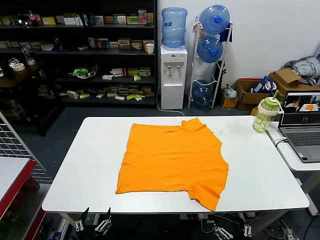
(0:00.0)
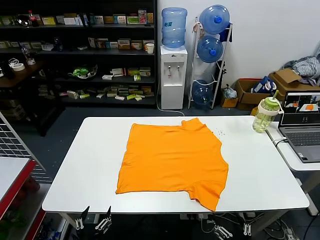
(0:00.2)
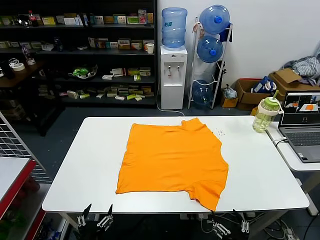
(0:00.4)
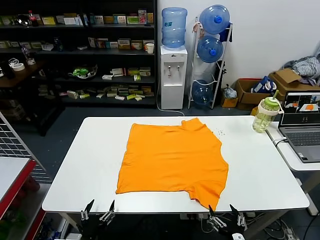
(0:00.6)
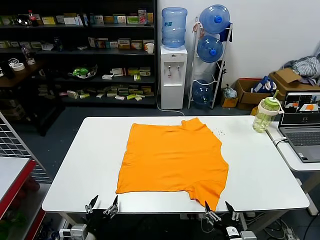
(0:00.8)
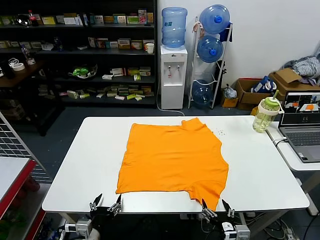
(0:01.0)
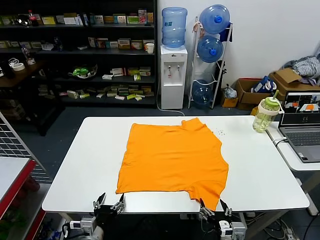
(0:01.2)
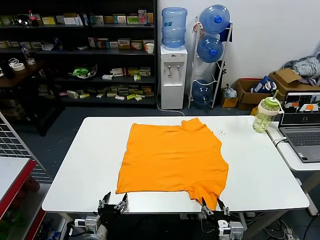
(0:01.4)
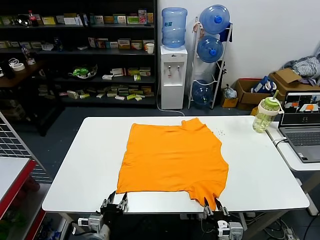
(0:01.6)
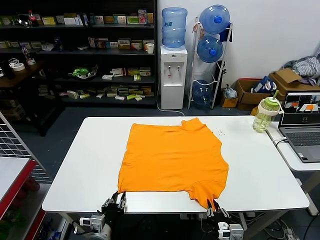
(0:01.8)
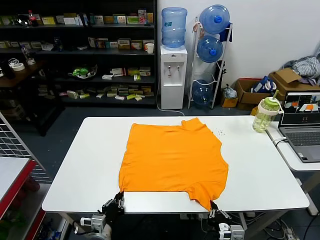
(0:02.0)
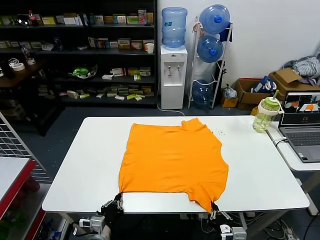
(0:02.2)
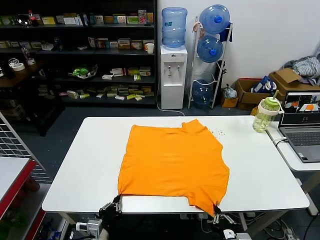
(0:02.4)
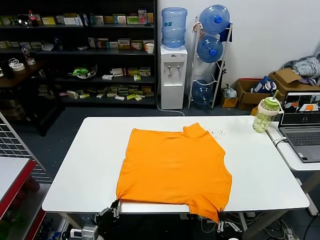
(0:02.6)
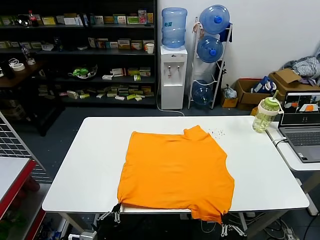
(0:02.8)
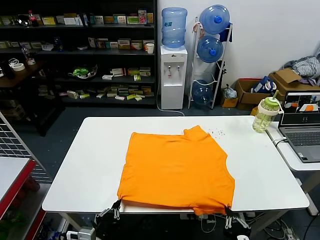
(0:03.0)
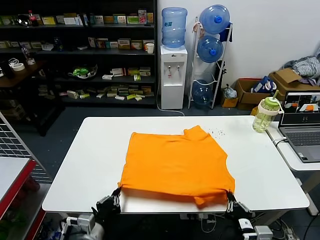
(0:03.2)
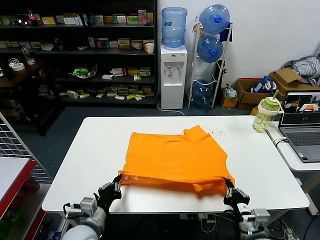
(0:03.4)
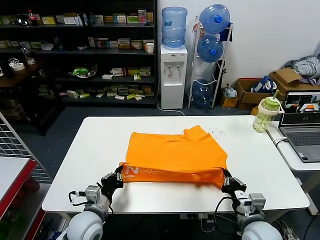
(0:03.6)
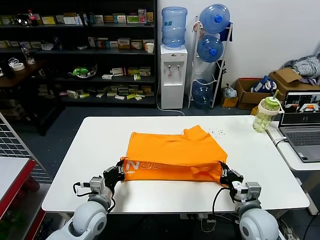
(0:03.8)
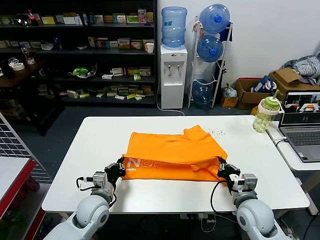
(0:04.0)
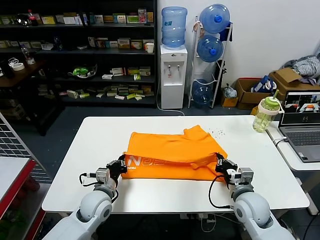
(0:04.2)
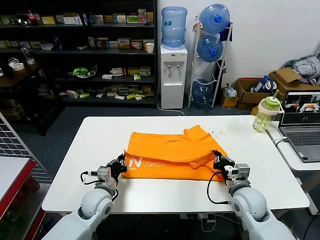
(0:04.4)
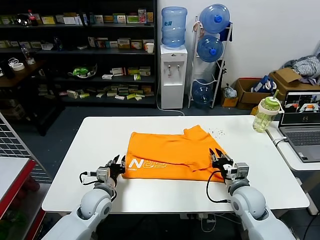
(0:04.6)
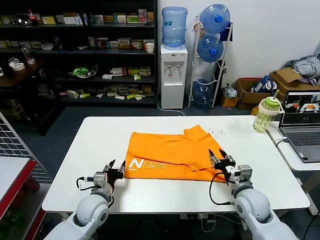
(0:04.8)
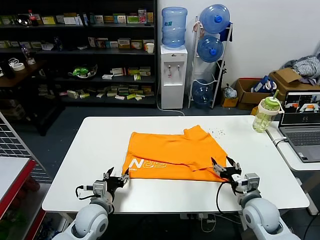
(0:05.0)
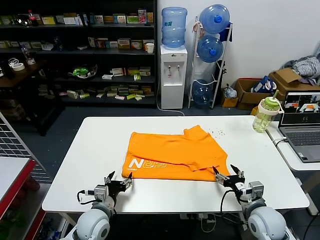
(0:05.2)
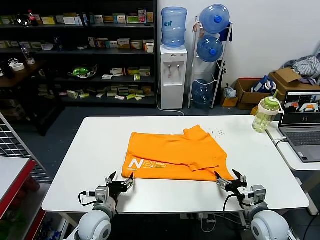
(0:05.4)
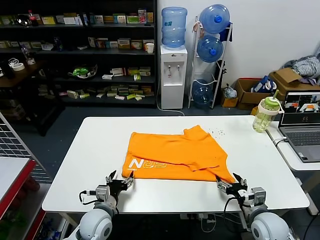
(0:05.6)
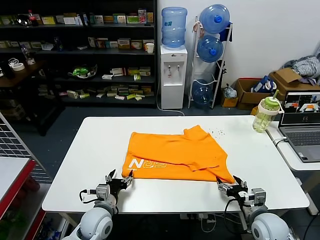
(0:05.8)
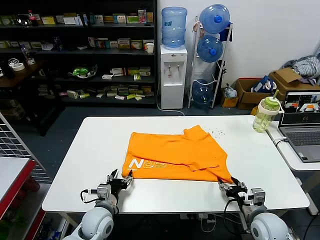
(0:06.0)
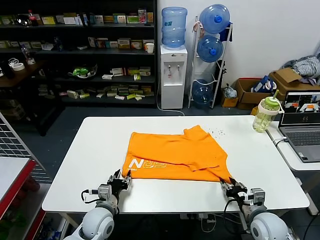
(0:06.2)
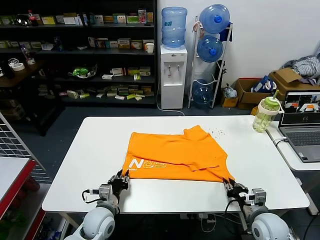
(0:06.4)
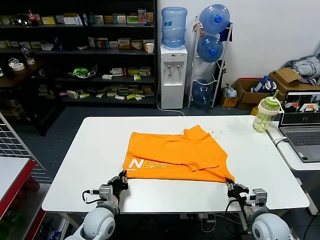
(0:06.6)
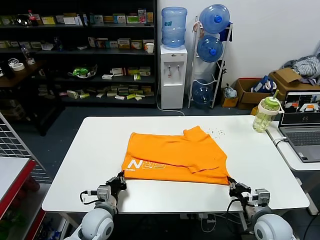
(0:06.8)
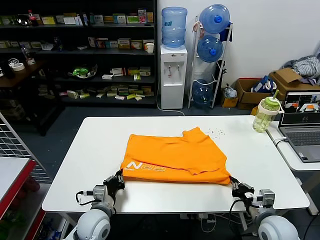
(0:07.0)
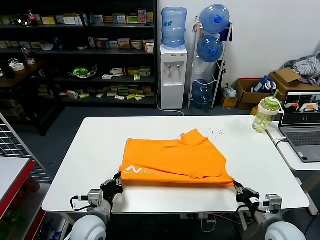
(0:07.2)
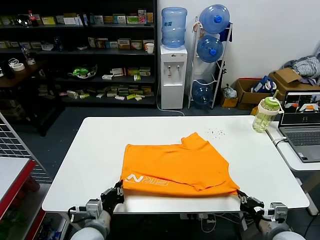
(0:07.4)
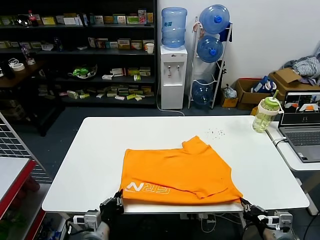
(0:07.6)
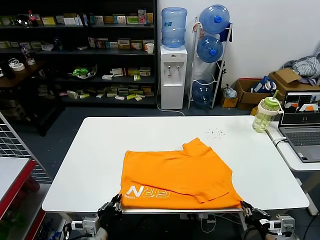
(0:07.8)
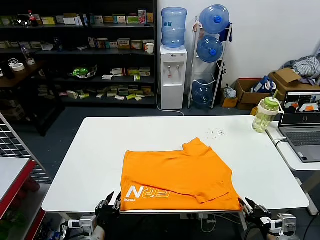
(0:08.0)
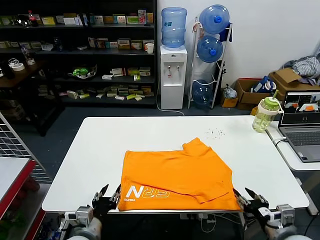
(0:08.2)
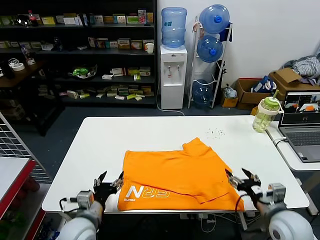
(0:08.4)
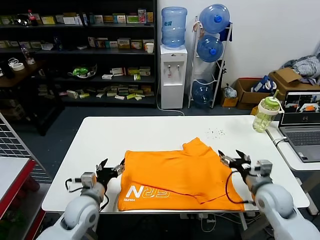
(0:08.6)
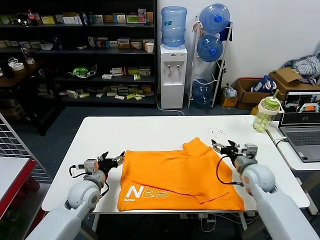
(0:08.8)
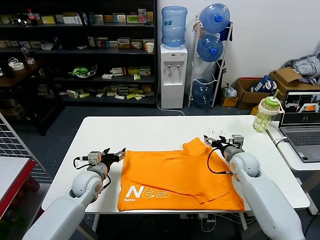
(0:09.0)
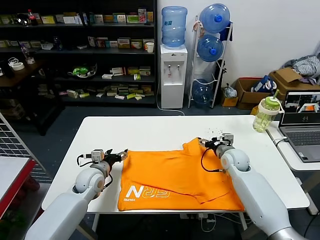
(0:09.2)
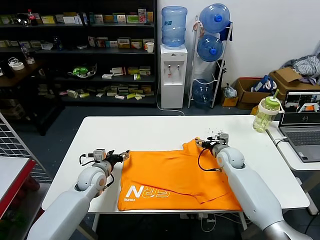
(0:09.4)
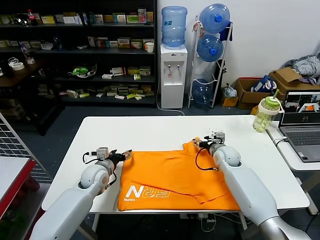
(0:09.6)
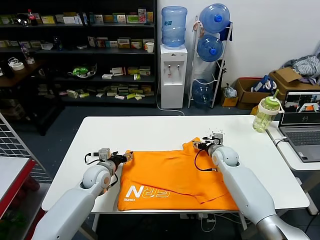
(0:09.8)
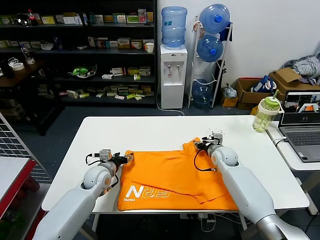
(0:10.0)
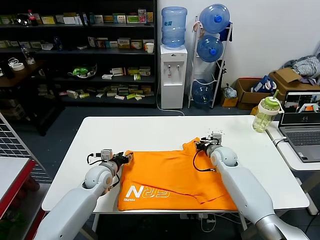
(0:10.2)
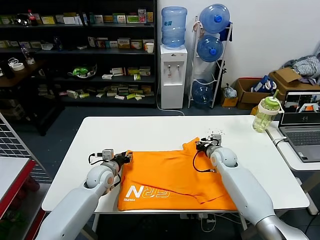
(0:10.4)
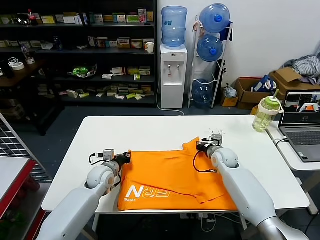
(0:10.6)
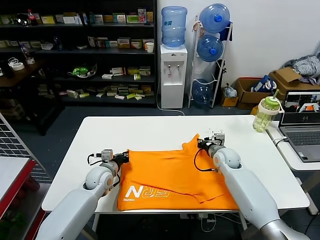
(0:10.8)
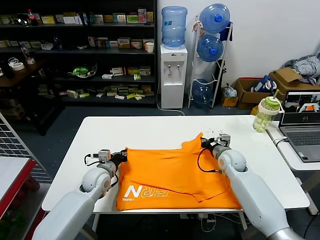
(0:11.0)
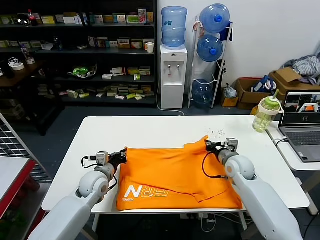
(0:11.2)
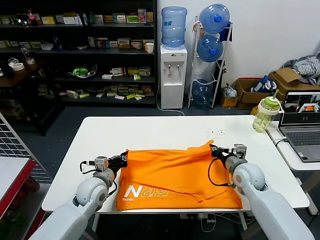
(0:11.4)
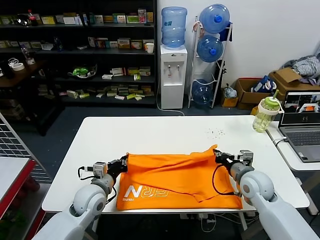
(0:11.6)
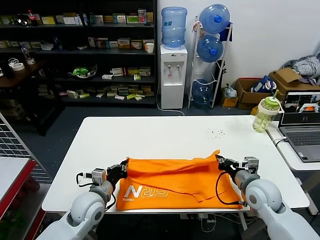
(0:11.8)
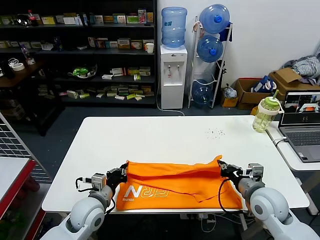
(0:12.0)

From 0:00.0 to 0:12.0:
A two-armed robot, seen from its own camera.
Task of the whole recording: fold and organize the clothes.
Step, from 0:00.0 to 0:02.0: use both grippers simultaneously to clamp the lower edge of the clothing fabric.
Step, from 0:02.2 to 0:04.4: use both grippers to drag the lower edge of the fabric forward and fold it over the upper edge.
Step, from 0:04.6 to 0:07.8: Drag the clothes downward with both gripper.
Step, from 0:08.0 to 0:10.6: use both grippers simultaneously to clamp the upper edge of the clothing fabric.
From 0:01.6 to 0:03.0: The right gripper moves upward, about 5 cm, and closes up. Meanwhile the left gripper shifts roughly 10 cm upward and backward, and closes up.
From 0:03.0 to 0:04.4: Both grippers travel together forward, approximately 20 cm.
From 0:04.4 to 0:06.0: The right gripper goes approximately 10 cm backward and to the right, and opens its fingers. The left gripper changes place by roughly 5 cm, and opens up.
From 0:06.0 to 0:07.6: The two grippers go about 10 cm backward and upward. The left gripper closes its fingers. The right gripper closes its fingers.
From 0:07.6 to 0:09.0: The two grippers go roughly 25 cm forward. The right gripper opens. The left gripper opens.
From 0:09.0 to 0:10.4: The left gripper ends up some 5 cm from where it was, and closes its fingers. Meanwhile the right gripper moves some 10 cm, and closes.
From 0:10.4 to 0:12.0: The left gripper shifts roughly 15 cm backward, and closes its fingers. The right gripper is displaced backward by about 20 cm.

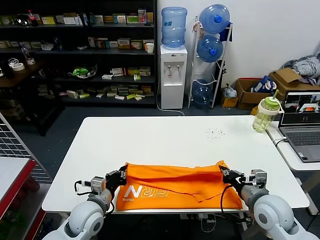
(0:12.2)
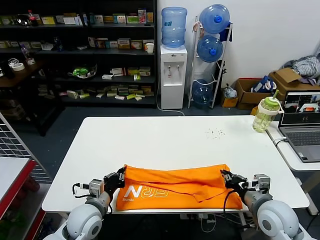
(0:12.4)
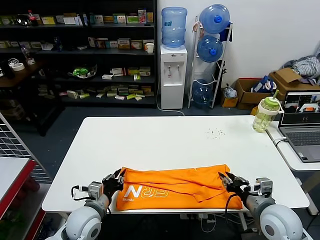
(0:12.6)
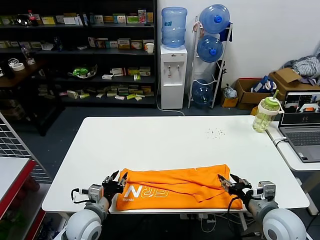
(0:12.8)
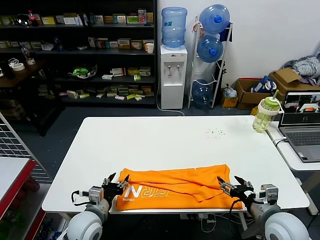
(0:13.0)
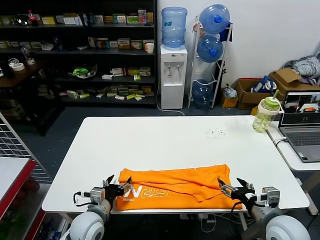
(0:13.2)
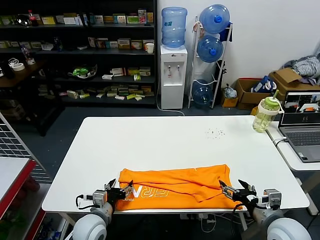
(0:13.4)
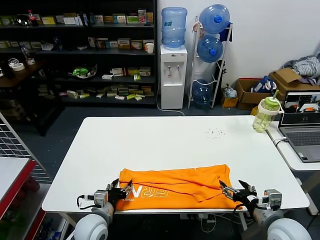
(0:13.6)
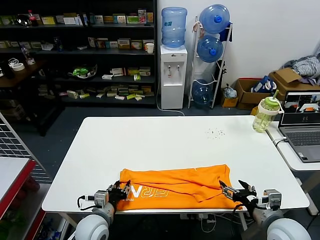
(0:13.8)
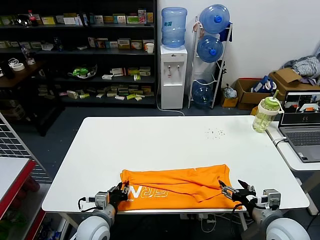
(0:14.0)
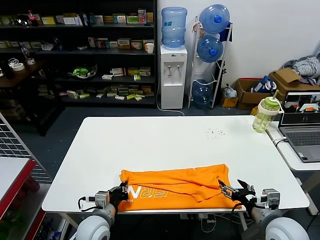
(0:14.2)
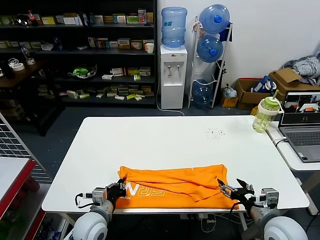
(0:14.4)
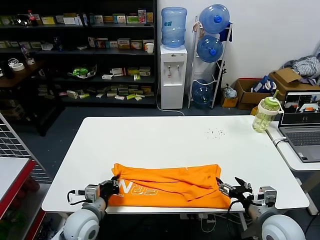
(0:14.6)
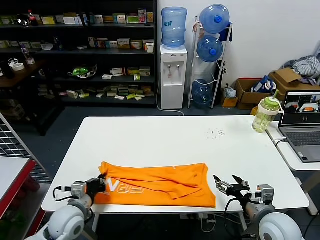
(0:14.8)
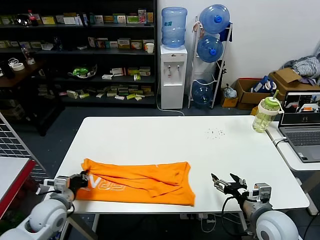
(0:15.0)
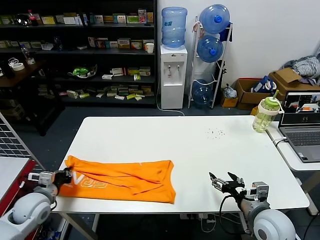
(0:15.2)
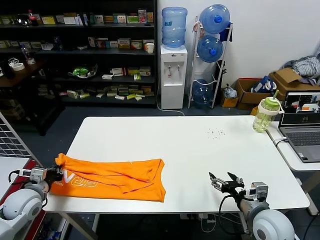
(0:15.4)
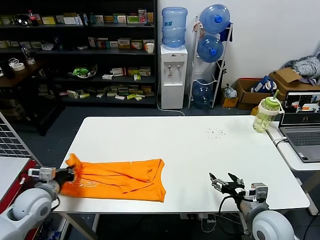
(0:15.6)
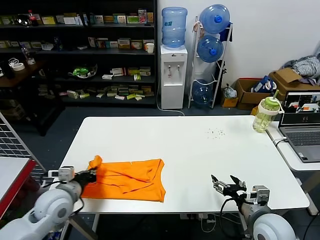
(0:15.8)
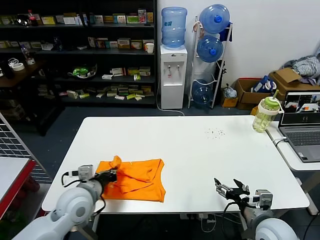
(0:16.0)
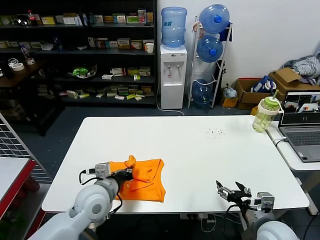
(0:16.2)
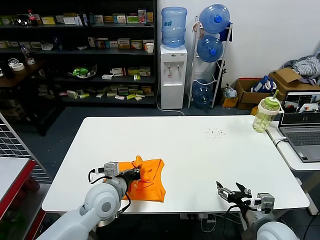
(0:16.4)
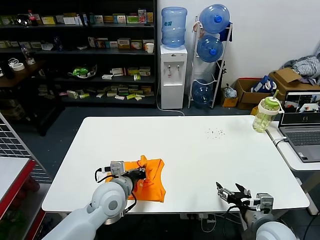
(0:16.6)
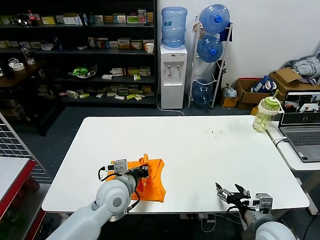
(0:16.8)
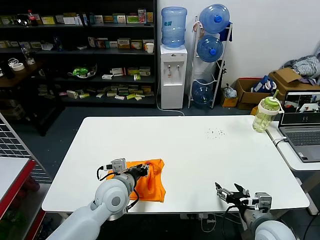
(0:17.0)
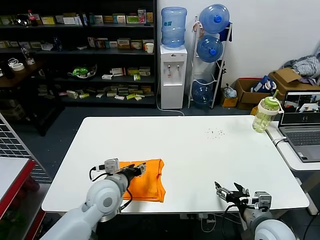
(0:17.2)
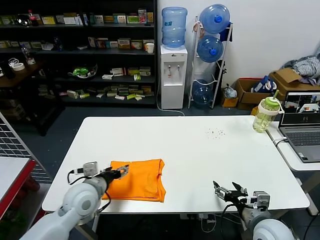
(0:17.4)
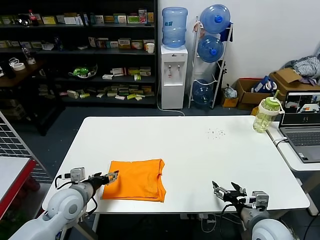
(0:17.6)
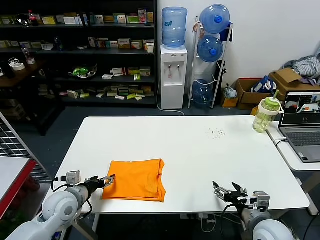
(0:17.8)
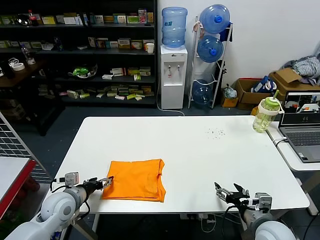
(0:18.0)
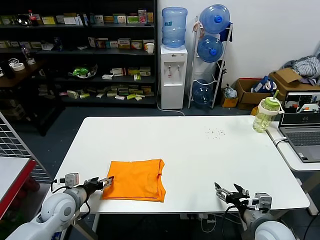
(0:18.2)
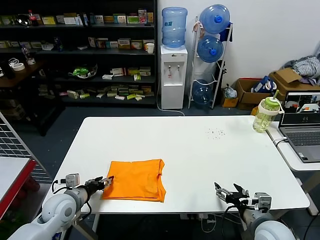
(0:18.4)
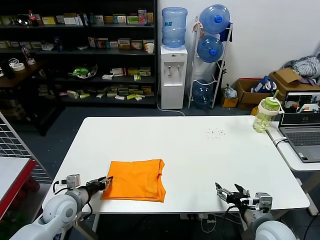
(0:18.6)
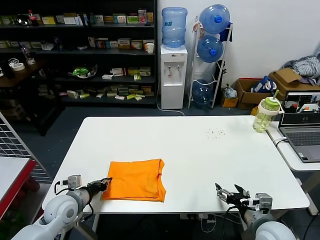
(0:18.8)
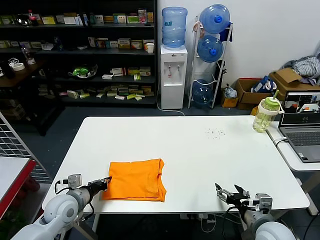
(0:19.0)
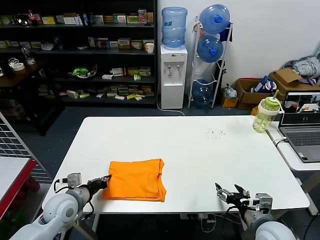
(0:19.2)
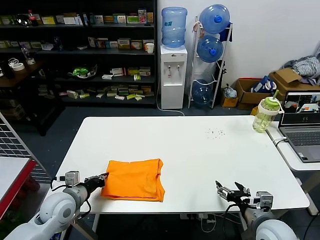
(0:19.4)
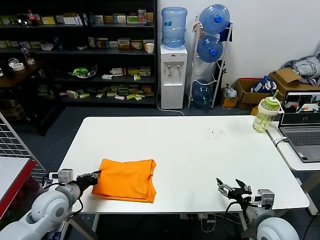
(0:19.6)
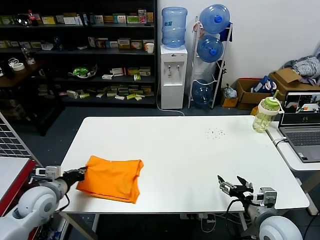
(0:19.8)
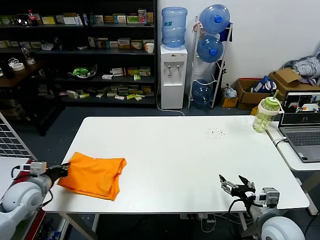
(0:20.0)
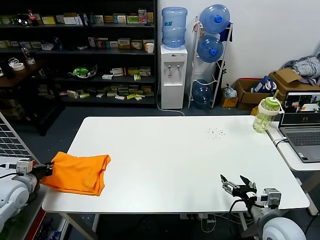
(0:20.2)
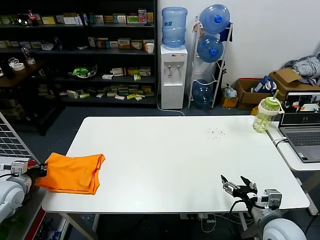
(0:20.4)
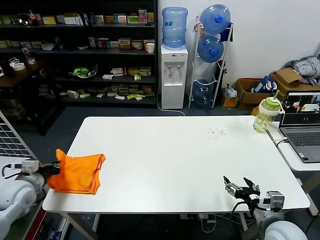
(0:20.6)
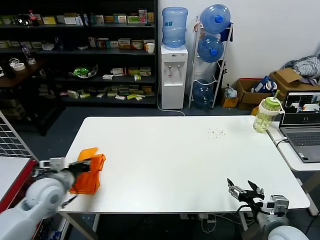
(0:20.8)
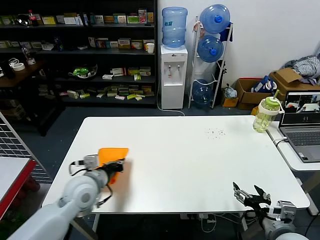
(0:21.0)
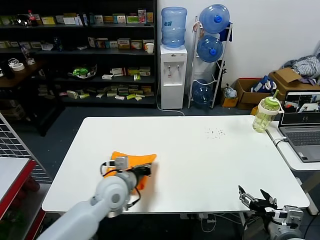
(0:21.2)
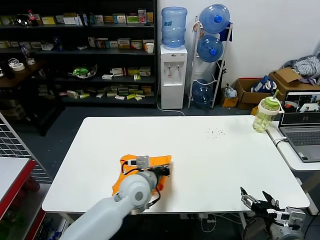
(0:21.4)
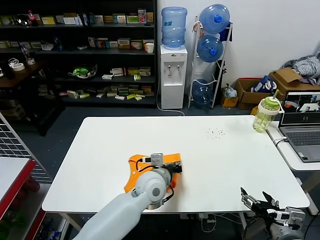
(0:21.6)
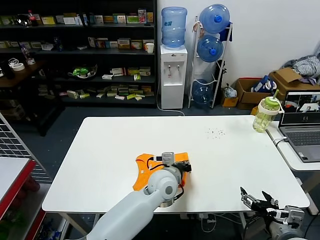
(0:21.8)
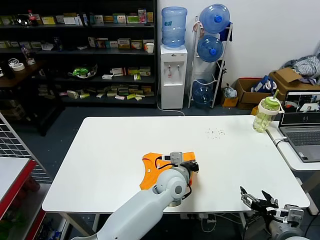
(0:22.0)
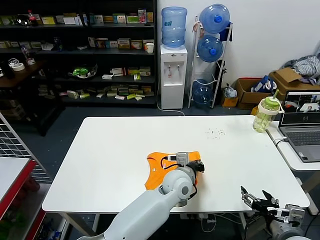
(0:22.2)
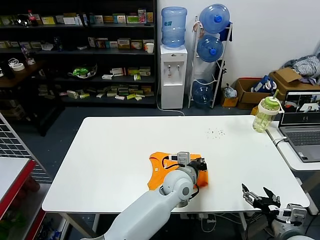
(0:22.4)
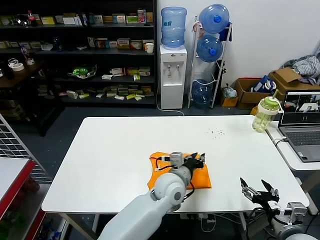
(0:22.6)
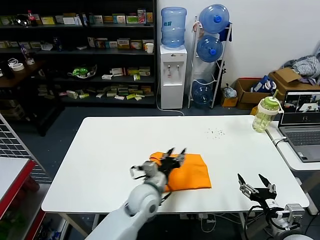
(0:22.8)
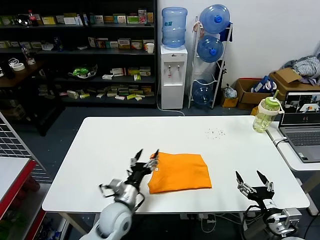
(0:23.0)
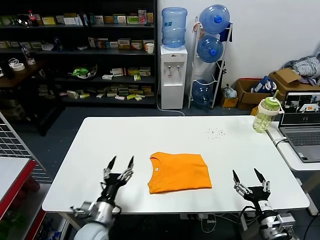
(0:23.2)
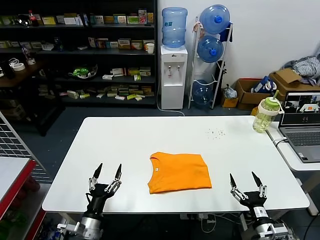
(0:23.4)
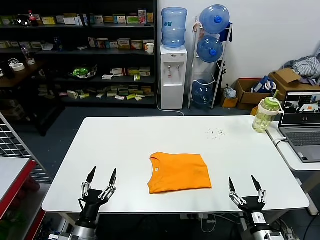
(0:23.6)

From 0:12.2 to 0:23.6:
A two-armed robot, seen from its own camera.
Task of the whole recording: fold and organize the clothes.
Step, from 0:12.8 to 0:14.2: use the left gripper to clamp the left edge of the fabric.
Step, from 0:14.4 to 0:17.0: use the left gripper to drag the left edge of the fabric to the left and folds it over the right edge.
Step, from 0:17.2 to 0:22.4: Flip the folded clothes over with left gripper.
From 0:12.2 to 0:13.6: The right gripper goes about 5 cm backward, and opens its fingers; the left gripper ends up about 5 cm from where it was, and opens up.
From 0:13.6 to 0:15.0: The left gripper shifts some 15 cm to the left and upward, and closes.
From 0:15.0 to 0:16.4: The left gripper goes roughly 15 cm to the right.
From 0:16.4 to 0:17.8: The left gripper shifts about 15 cm to the left, and opens its fingers.
From 0:17.8 to 0:19.4: The left gripper closes up.
From 0:19.4 to 0:20.8: The left gripper moves to the left and upward, roughly 10 cm.
From 0:20.8 to 0:22.2: The left gripper moves to the right, roughly 40 cm.
From 0:22.2 to 0:23.6: The left gripper shifts roughly 35 cm to the left and backward, and opens. The right gripper is displaced downward by some 10 cm.
